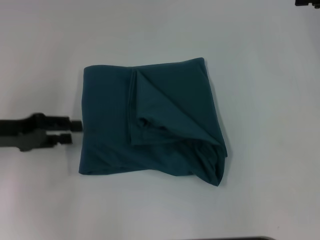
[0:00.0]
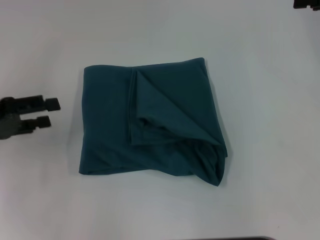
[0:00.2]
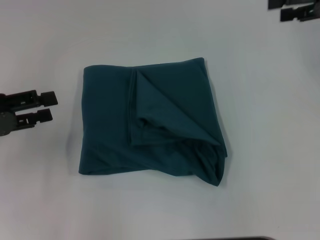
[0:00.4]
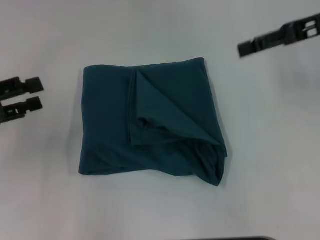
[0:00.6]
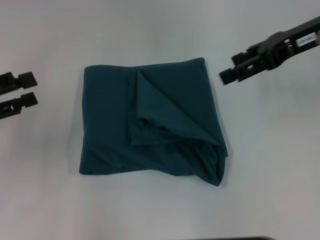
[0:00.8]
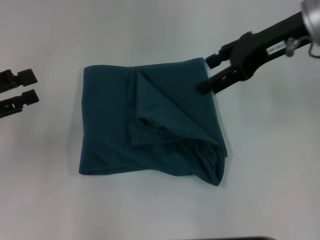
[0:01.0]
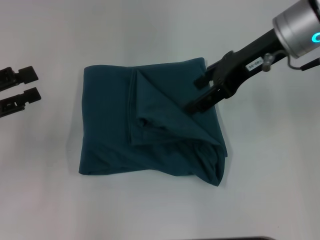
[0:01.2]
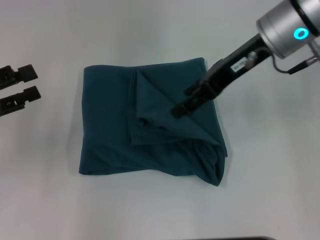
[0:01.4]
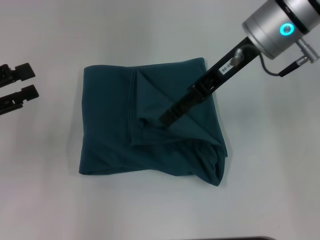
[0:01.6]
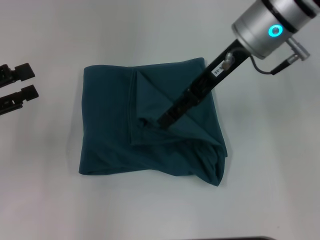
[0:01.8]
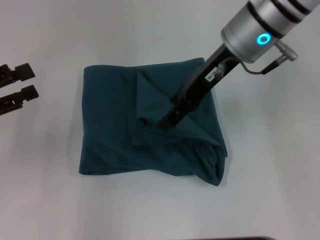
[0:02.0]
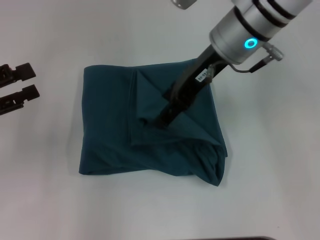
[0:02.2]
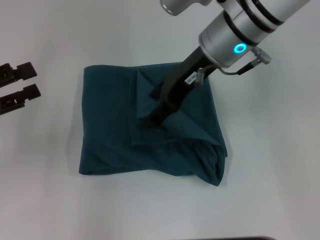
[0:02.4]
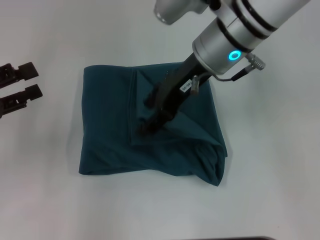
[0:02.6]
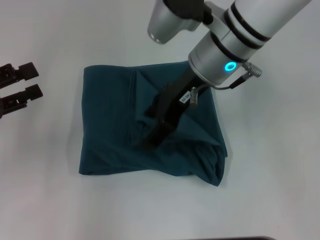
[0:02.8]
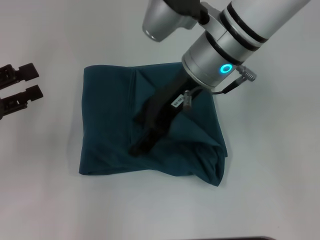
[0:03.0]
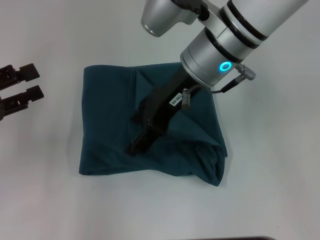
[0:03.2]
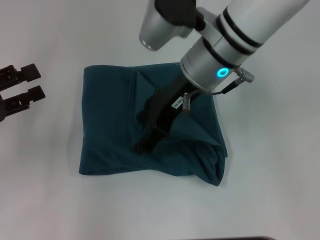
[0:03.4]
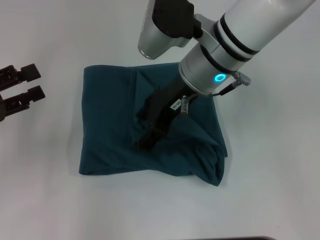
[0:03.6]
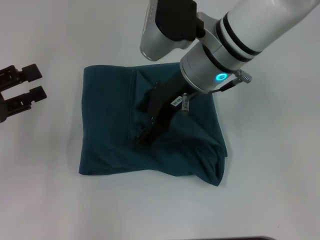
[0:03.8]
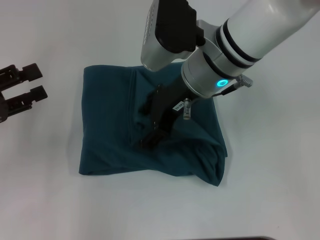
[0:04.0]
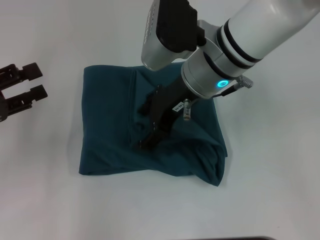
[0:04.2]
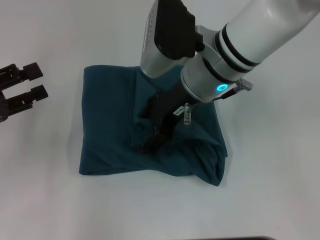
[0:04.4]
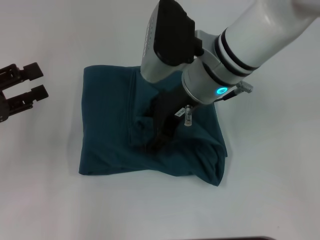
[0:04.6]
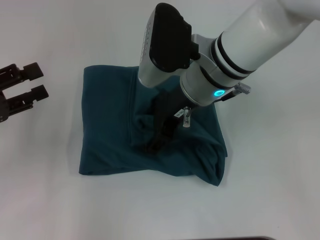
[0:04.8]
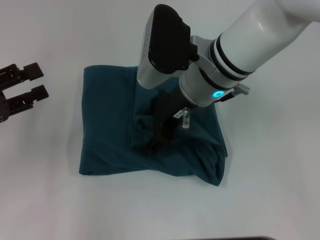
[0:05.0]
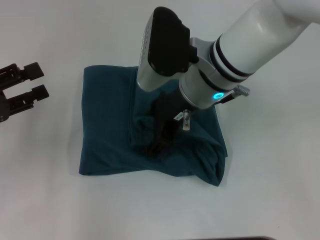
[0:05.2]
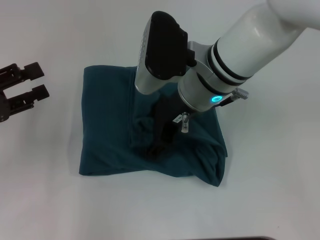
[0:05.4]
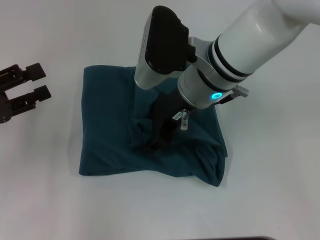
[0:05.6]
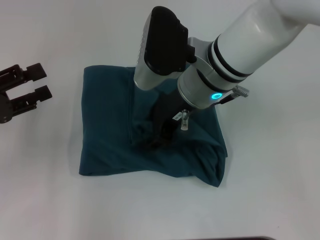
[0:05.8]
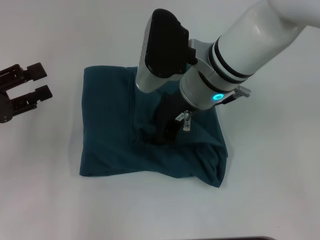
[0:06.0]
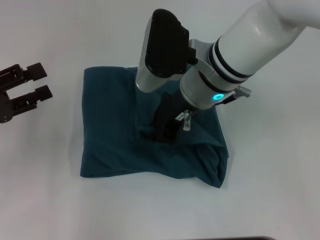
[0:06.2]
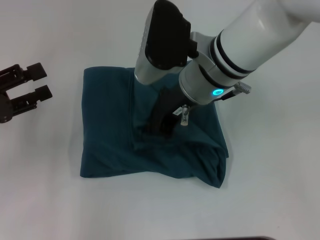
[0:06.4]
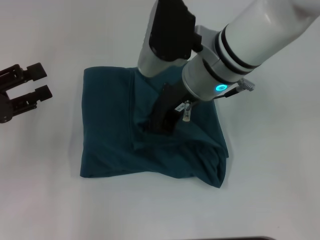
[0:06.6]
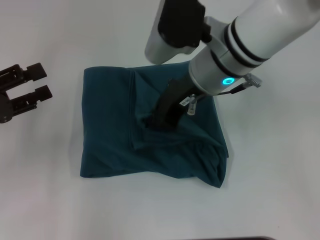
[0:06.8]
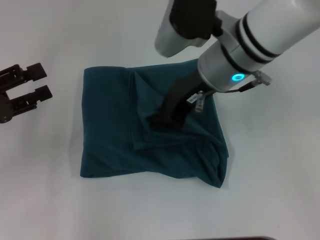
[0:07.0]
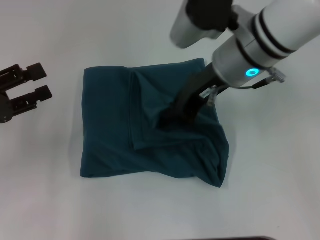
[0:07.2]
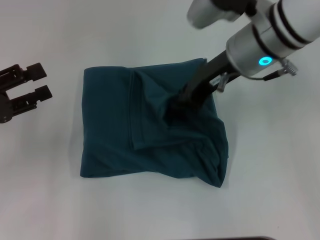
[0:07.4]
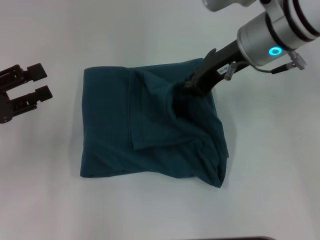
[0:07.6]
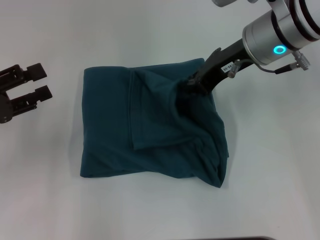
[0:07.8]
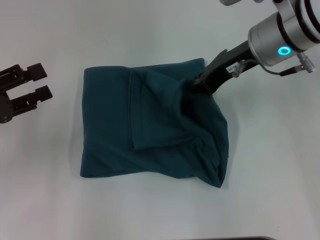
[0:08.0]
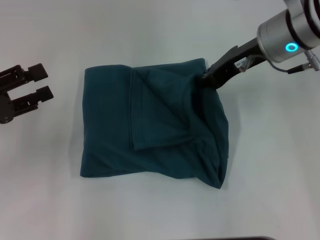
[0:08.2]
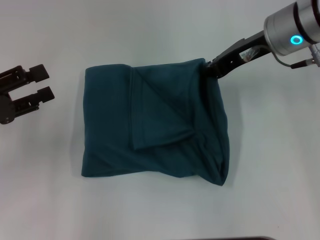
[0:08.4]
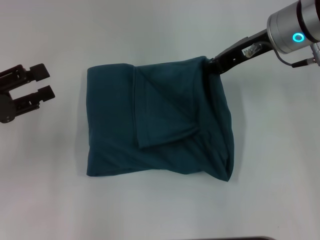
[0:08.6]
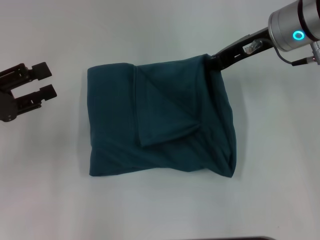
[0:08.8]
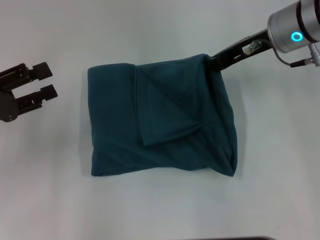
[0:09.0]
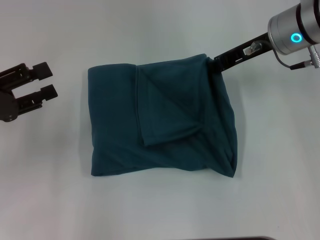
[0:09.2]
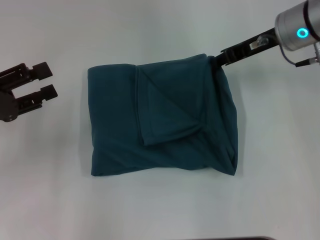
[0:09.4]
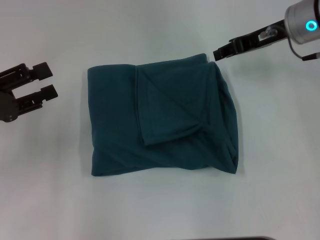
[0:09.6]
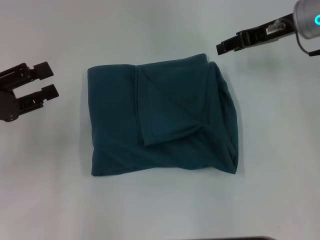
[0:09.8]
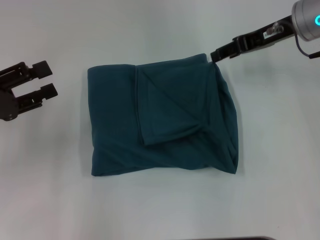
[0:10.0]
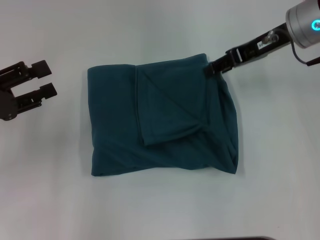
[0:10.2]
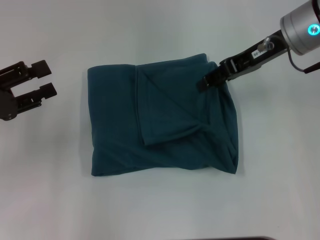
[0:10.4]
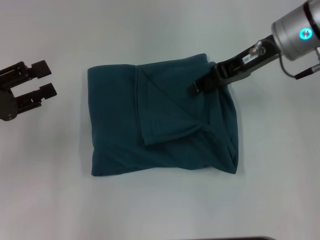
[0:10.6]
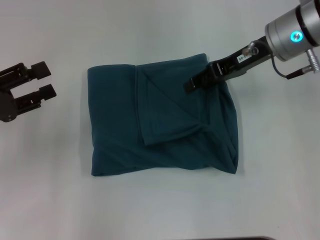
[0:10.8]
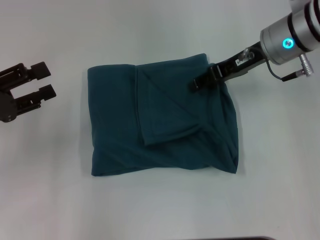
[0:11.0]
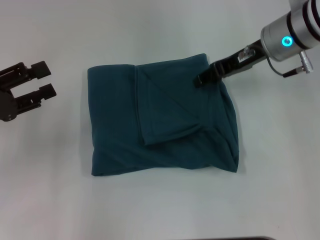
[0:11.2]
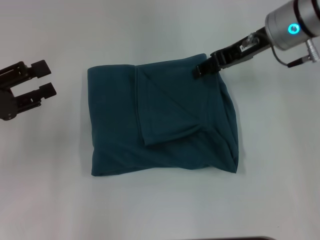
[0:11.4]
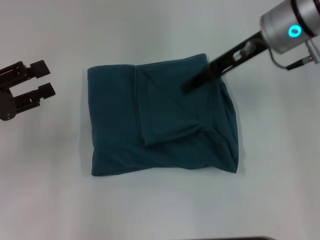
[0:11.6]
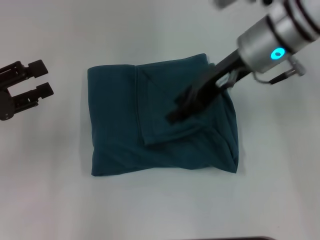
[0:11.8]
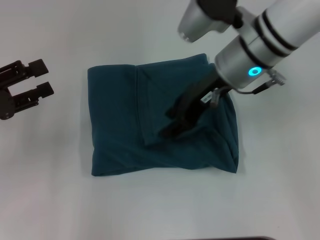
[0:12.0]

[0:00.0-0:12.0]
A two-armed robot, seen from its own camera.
0:00.0 to 0:01.6: The left gripper moves some 5 cm, and opens up, while the right gripper moves to the left, about 20 cm.
0:01.6 to 0:03.0: The right gripper heads to the left, covering approximately 5 cm.
0:03.0 to 0:04.4: There are only small adjustments of the grippers.
0:04.4 to 0:06.0: The right gripper closes up.
0:06.0 to 0:07.6: The right gripper is displaced to the right by some 10 cm, and closes.
0:07.6 to 0:09.0: The right gripper changes place by some 5 cm.
0:09.0 to 0:10.4: The right gripper opens up.
0:10.4 to 0:12.0: The right gripper goes roughly 10 cm to the left.

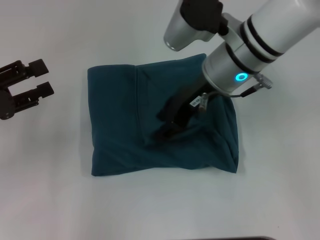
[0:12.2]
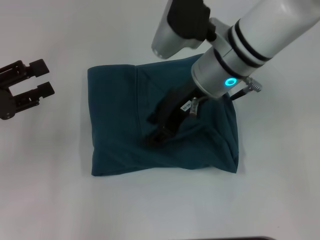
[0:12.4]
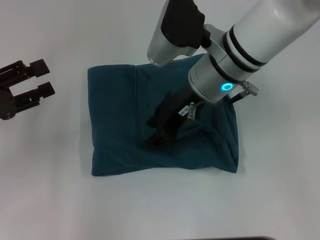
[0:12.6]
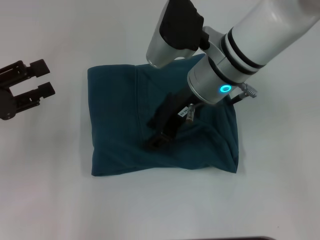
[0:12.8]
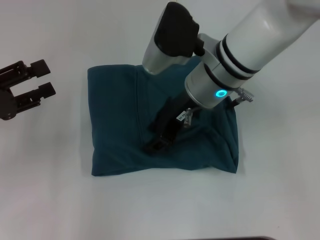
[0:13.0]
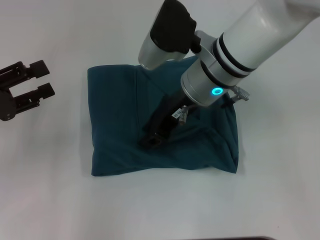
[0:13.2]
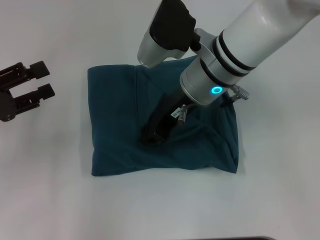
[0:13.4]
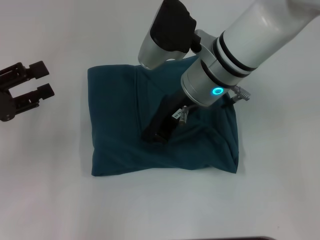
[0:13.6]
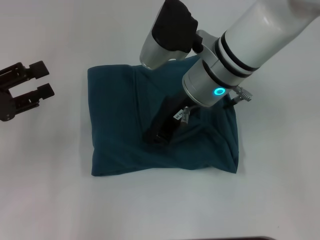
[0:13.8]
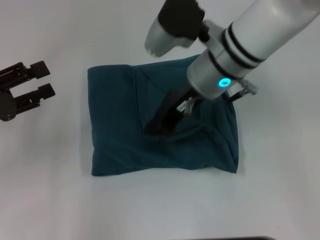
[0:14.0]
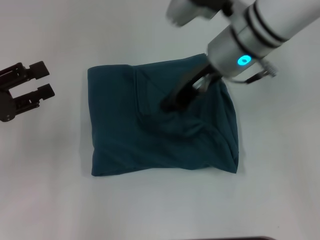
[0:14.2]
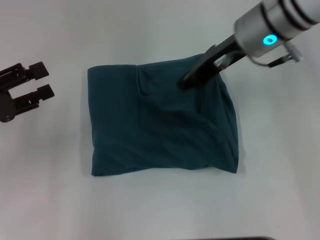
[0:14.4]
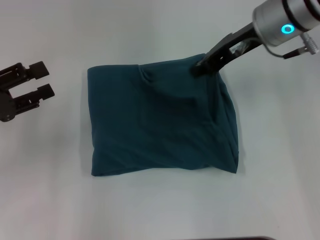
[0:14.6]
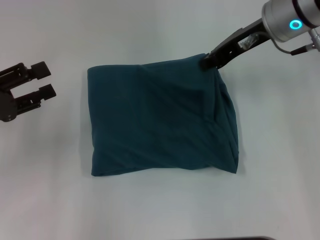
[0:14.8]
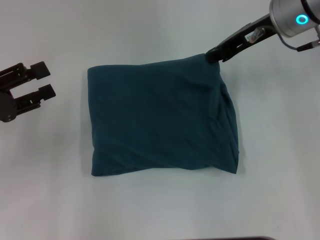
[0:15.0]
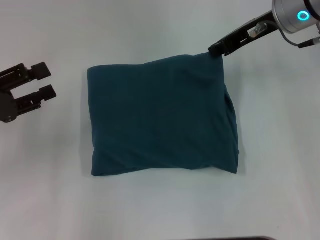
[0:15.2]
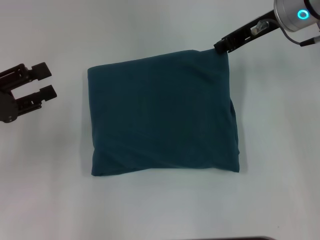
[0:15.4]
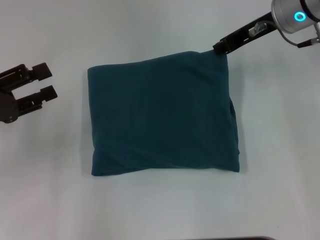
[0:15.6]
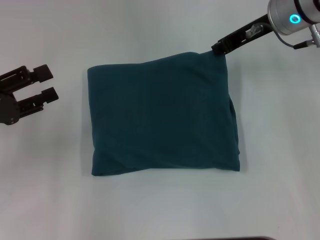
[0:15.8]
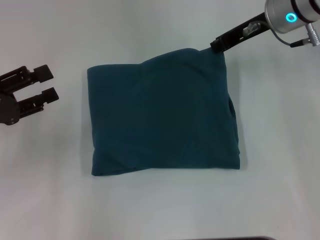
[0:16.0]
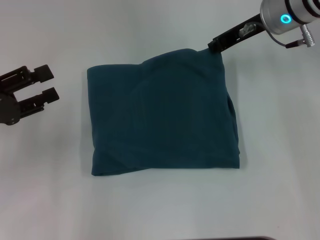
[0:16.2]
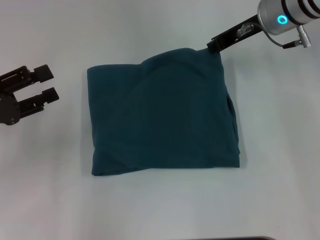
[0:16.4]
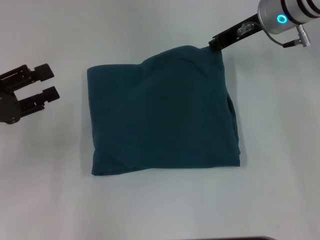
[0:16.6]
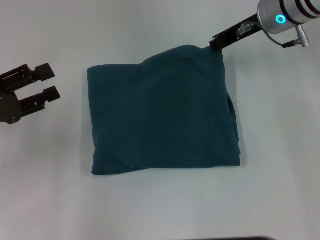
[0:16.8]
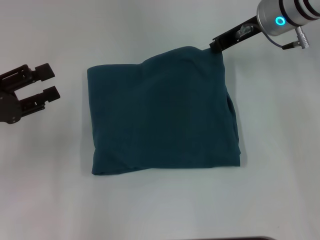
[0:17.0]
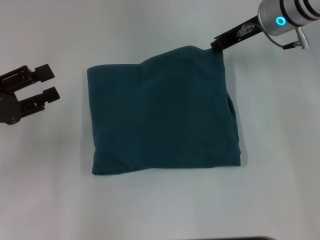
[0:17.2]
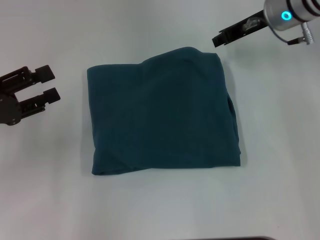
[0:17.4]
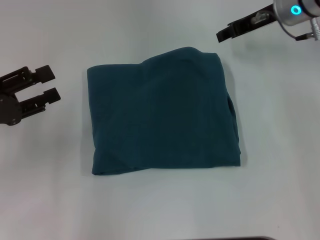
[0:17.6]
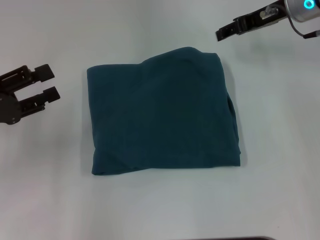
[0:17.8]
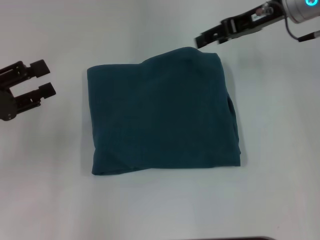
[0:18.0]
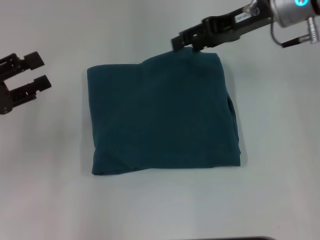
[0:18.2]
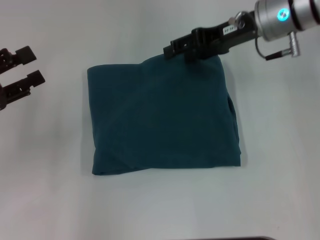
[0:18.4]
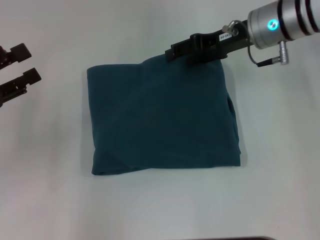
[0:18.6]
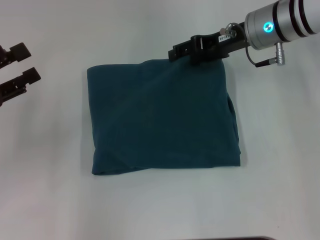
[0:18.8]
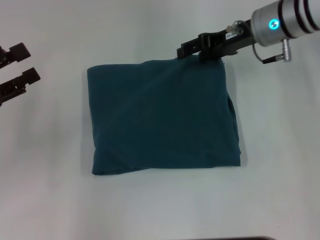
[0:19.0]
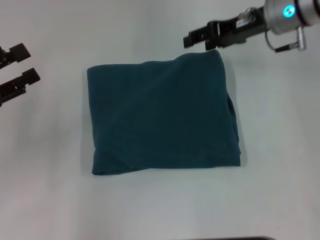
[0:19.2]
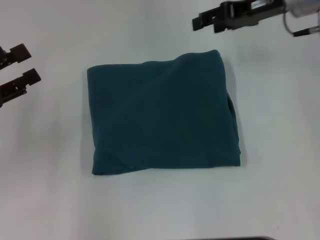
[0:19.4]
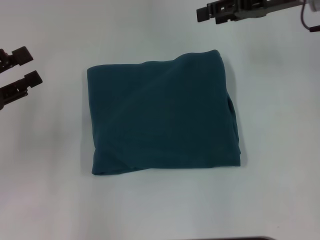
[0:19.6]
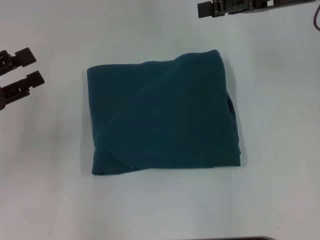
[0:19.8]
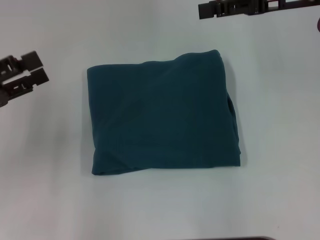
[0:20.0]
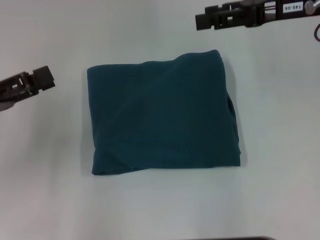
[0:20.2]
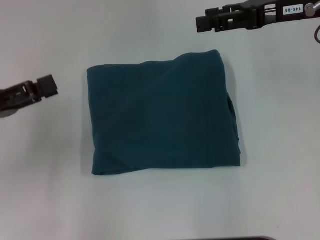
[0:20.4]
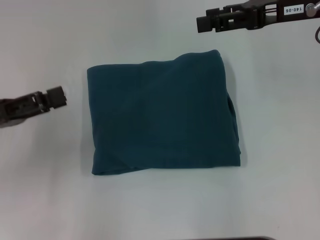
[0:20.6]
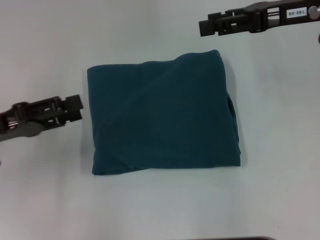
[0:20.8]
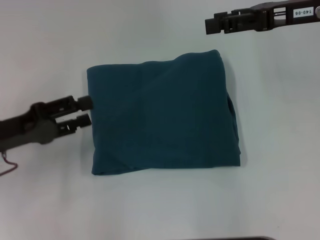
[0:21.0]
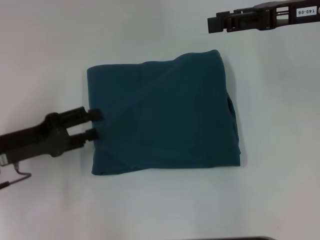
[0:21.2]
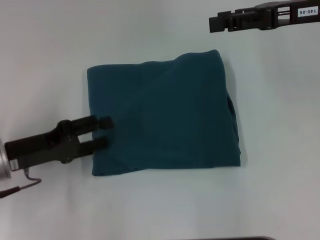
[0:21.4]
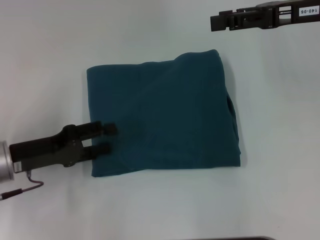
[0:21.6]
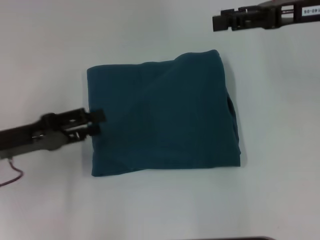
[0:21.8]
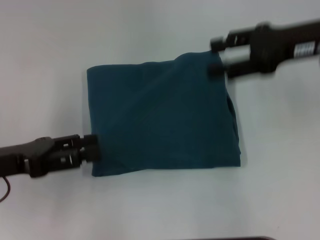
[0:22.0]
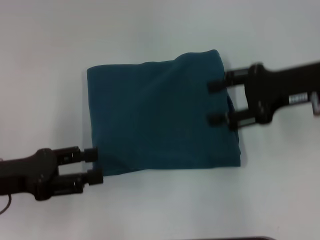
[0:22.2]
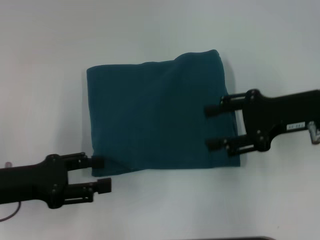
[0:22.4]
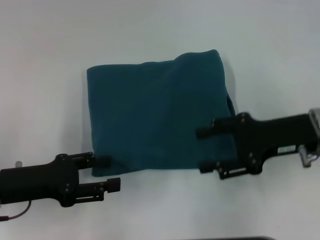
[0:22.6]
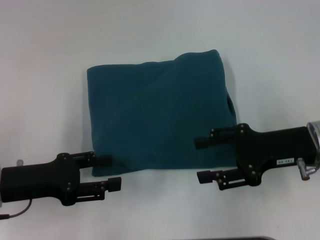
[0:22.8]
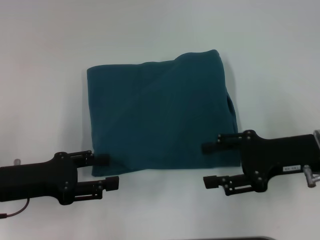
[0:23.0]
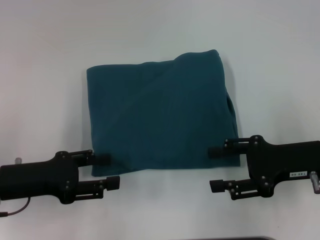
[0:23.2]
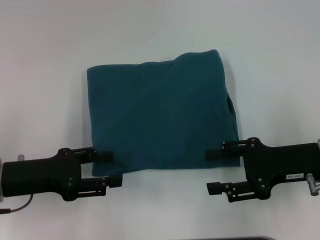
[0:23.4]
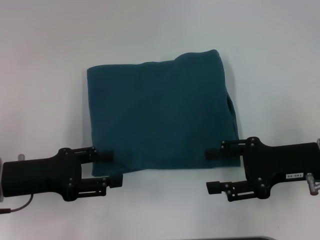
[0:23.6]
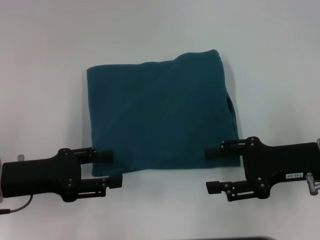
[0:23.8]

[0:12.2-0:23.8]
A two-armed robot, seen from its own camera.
0:12.2 to 0:13.6: The grippers stay close to where they were, moving slightly.
0:13.6 to 0:15.0: The right gripper travels to the right by about 10 cm.
0:15.0 to 0:16.6: The grippers stay close to where they were, moving slightly.
0:16.6 to 0:18.0: The right gripper opens.
0:19.4 to 0:21.0: The right gripper travels backward by some 5 cm. The left gripper changes place by about 5 cm.
0:21.0 to 0:22.4: The right gripper is displaced downward and backward by approximately 10 cm.
0:22.4 to 0:23.8: The right gripper shifts about 5 cm downward and backward.
